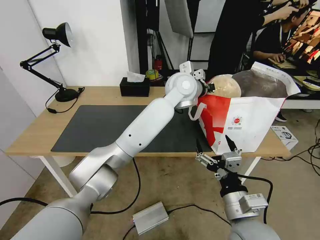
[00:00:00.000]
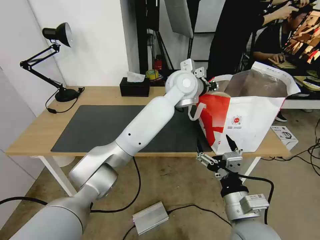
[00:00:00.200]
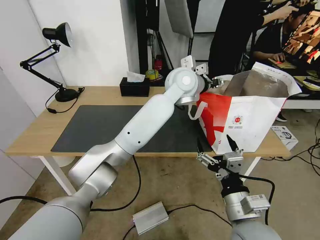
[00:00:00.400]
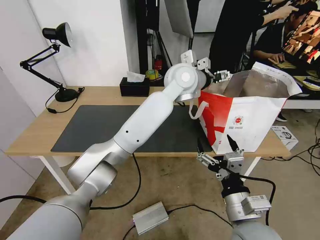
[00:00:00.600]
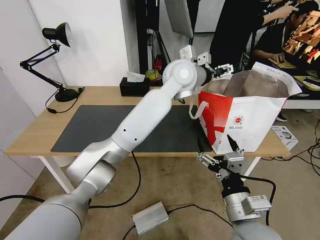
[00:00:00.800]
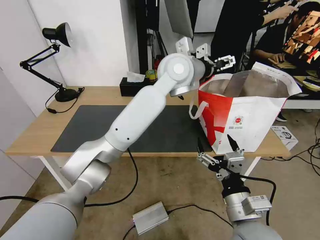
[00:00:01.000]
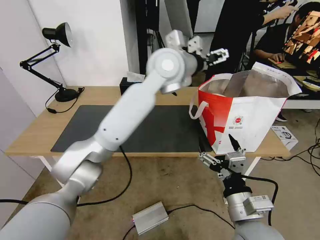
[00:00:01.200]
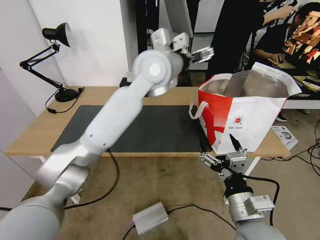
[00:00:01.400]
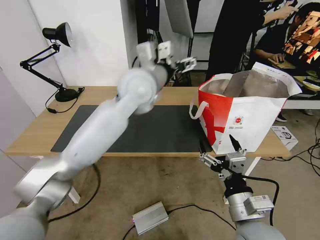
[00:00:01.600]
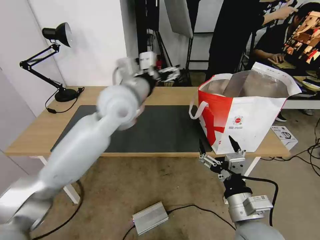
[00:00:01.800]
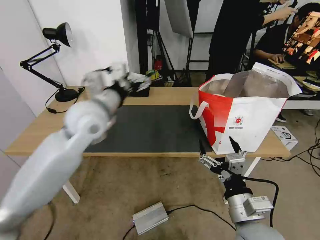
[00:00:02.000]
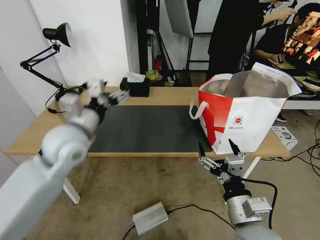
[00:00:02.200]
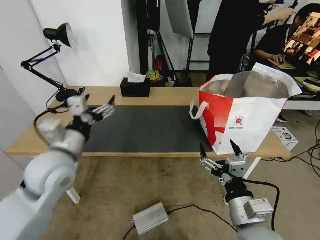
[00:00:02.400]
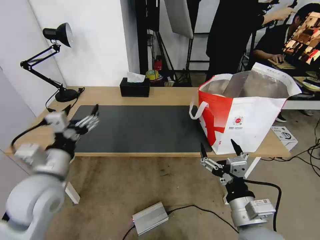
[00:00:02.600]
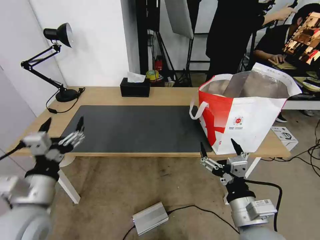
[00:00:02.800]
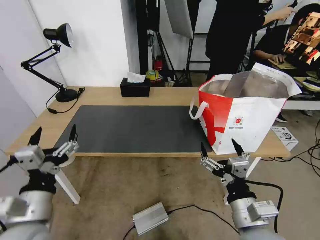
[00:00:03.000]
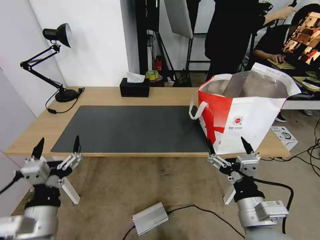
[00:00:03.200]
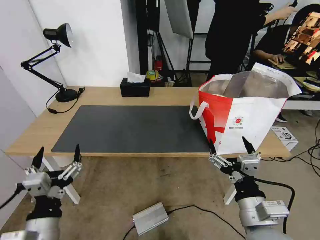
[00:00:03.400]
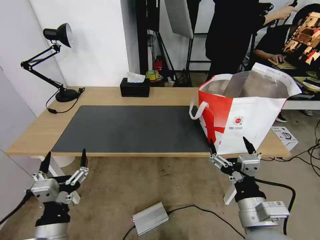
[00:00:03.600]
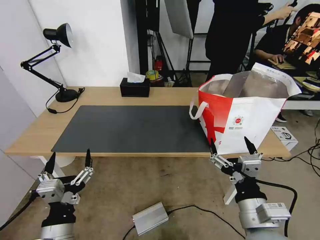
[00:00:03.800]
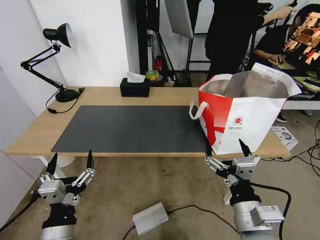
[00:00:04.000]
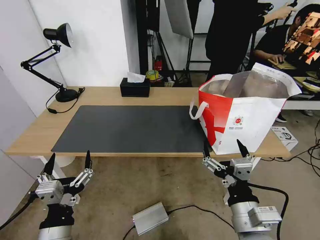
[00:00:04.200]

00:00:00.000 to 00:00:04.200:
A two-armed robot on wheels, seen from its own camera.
Task of the whole recording: Pick up the trash from the table and place it into the takeout bag.
00:00:00.000 to 00:00:01.400: The left gripper shifts some 10 cm to the left, upward and backward, and opens its fingers.
00:00:01.400 to 00:00:02.800: The left gripper moves backward, to the left and downward, approximately 40 cm.
00:00:02.800 to 00:00:04.200: The left gripper is displaced backward, downward and to the right by approximately 15 cm.
